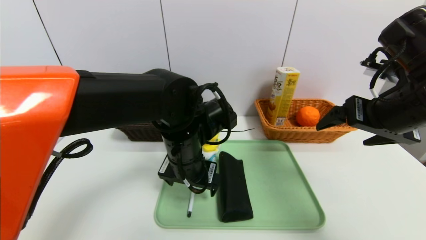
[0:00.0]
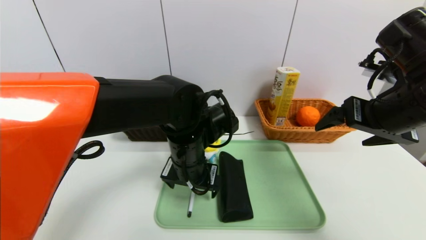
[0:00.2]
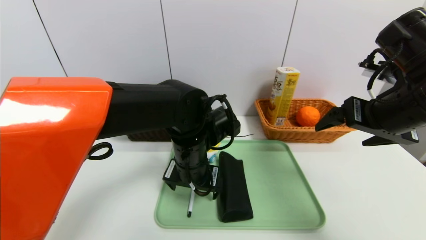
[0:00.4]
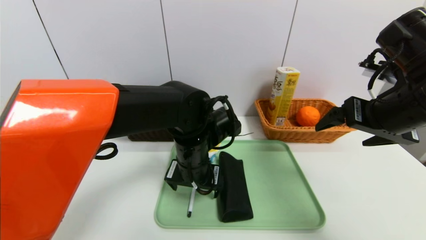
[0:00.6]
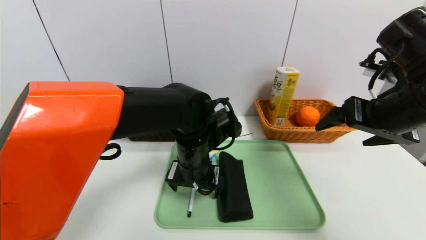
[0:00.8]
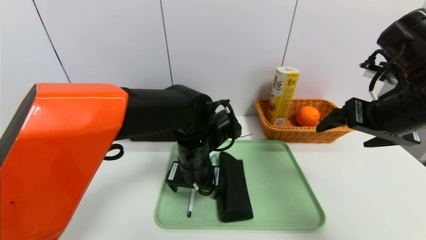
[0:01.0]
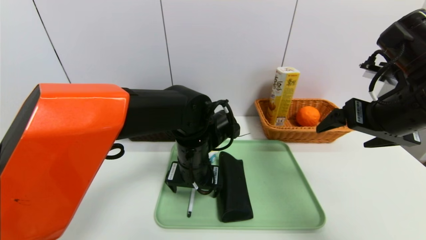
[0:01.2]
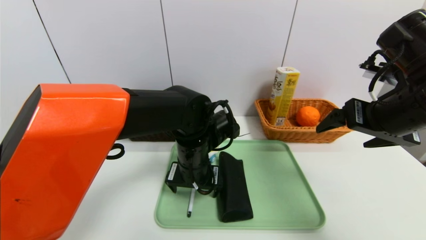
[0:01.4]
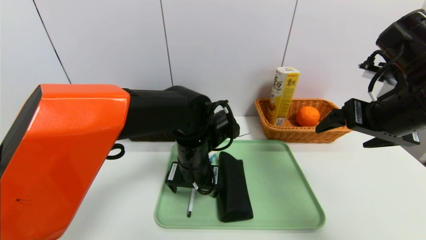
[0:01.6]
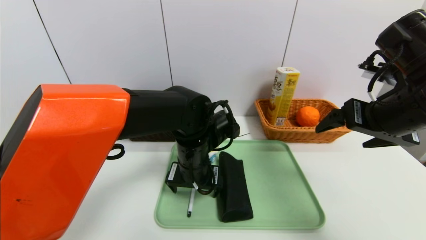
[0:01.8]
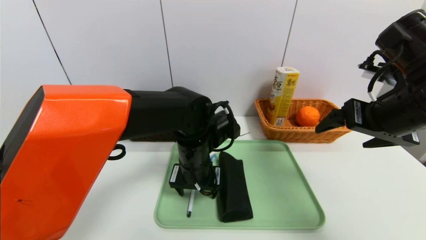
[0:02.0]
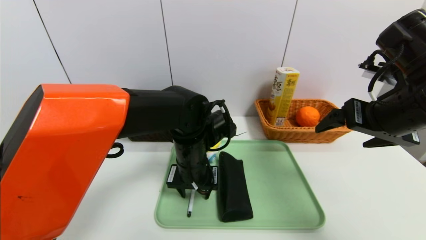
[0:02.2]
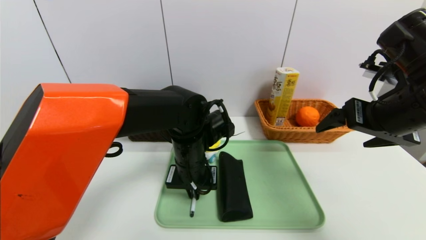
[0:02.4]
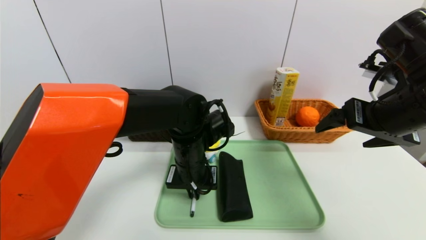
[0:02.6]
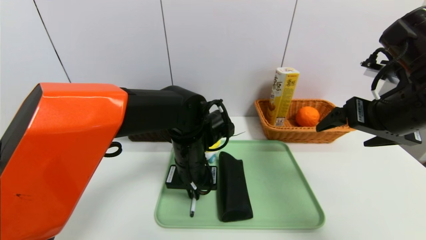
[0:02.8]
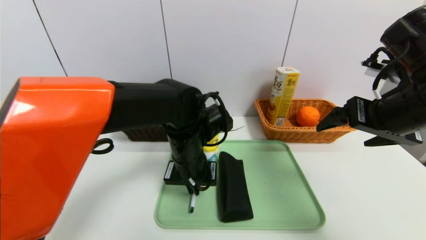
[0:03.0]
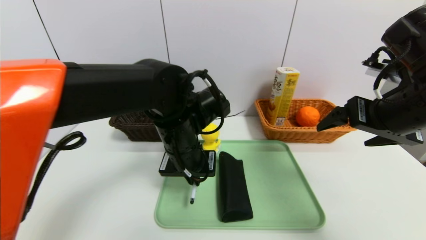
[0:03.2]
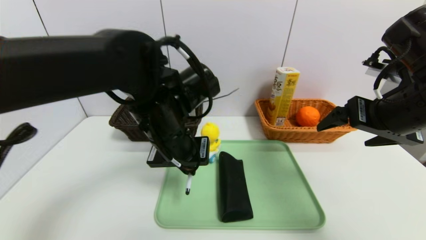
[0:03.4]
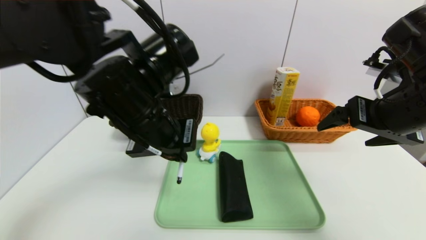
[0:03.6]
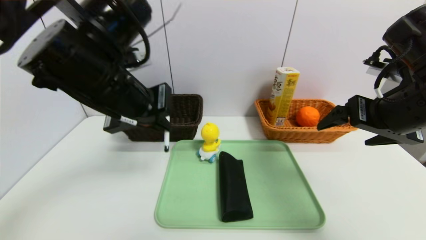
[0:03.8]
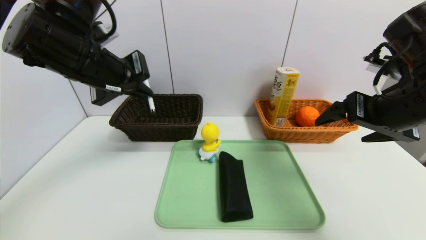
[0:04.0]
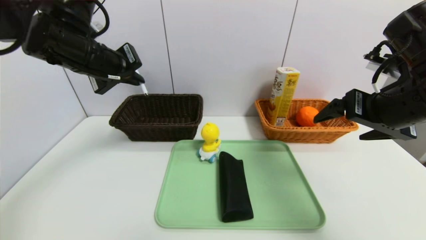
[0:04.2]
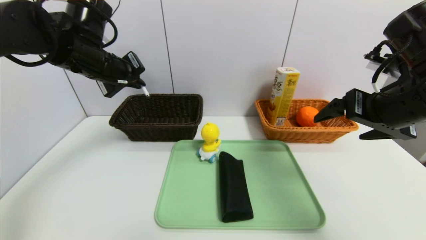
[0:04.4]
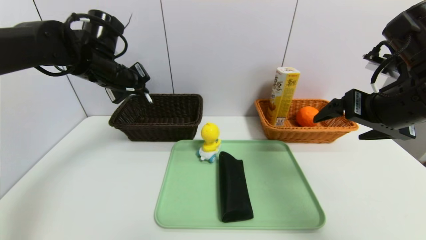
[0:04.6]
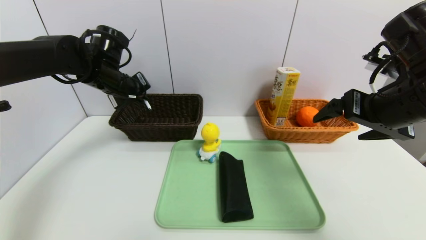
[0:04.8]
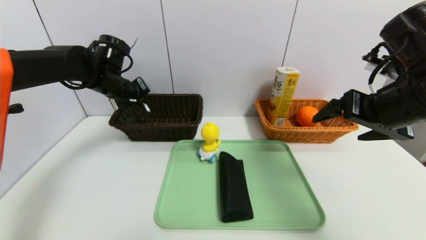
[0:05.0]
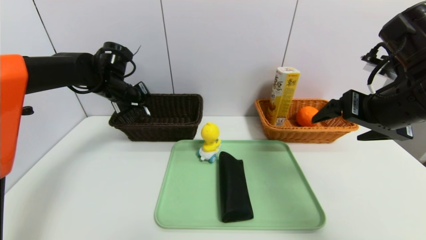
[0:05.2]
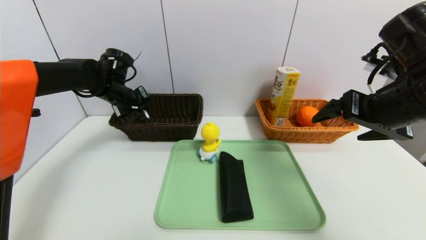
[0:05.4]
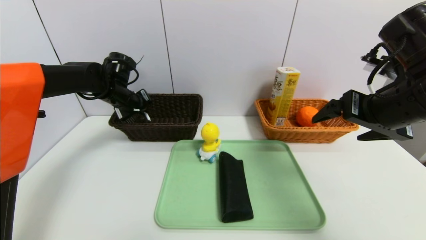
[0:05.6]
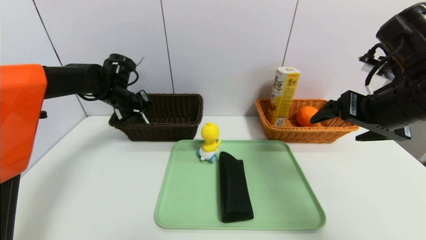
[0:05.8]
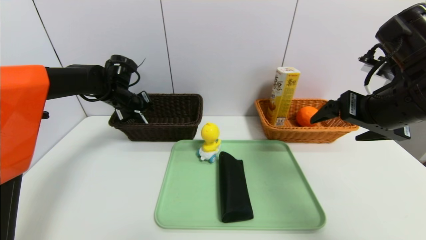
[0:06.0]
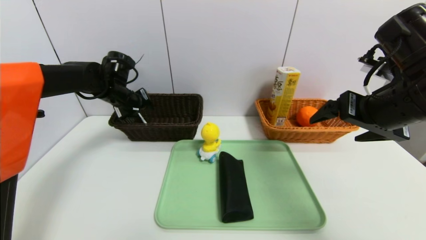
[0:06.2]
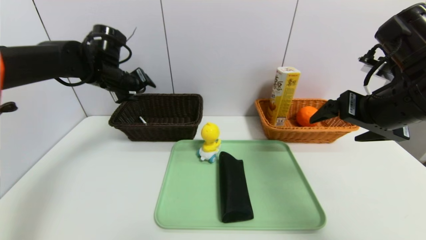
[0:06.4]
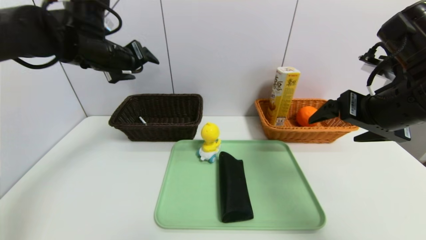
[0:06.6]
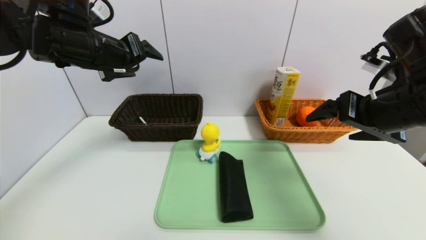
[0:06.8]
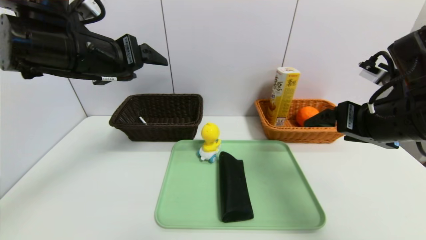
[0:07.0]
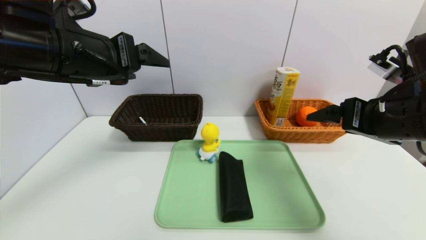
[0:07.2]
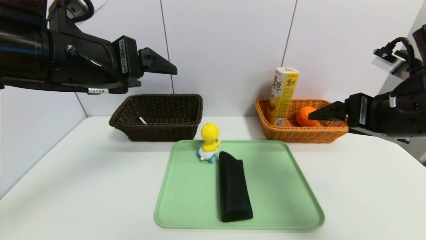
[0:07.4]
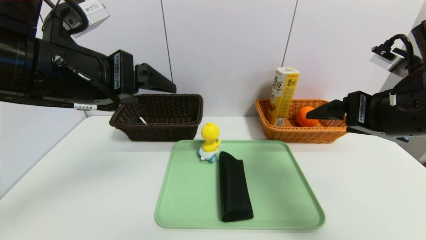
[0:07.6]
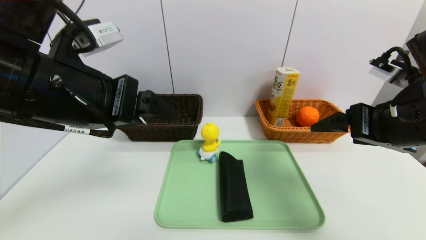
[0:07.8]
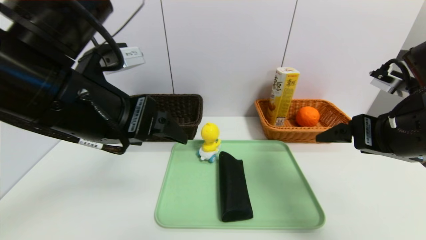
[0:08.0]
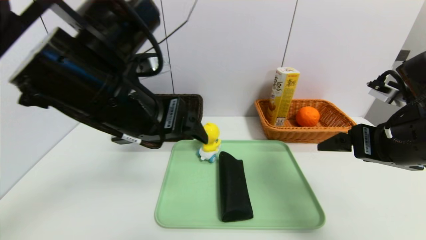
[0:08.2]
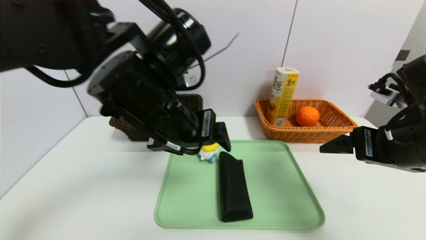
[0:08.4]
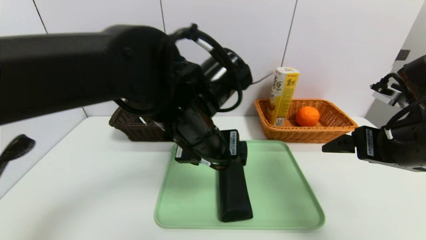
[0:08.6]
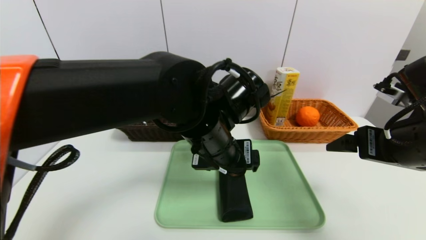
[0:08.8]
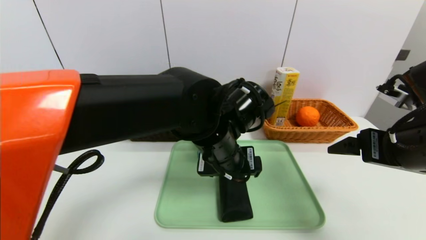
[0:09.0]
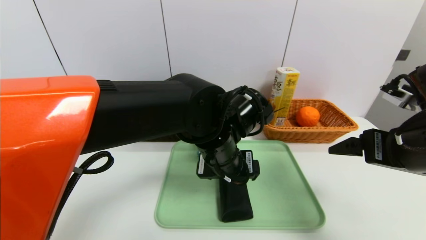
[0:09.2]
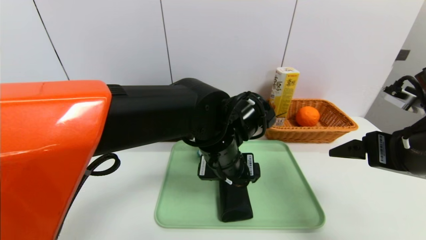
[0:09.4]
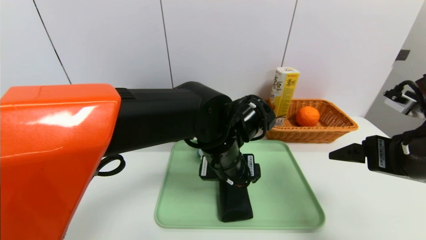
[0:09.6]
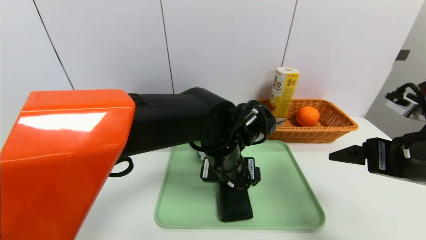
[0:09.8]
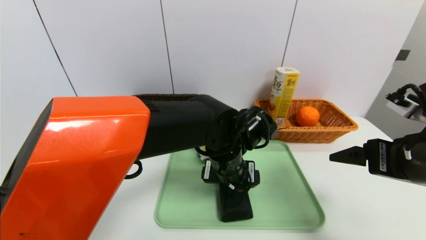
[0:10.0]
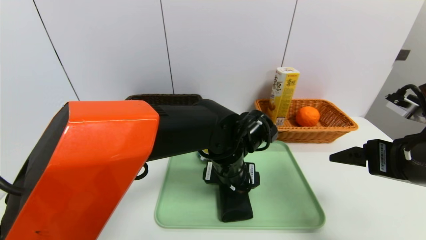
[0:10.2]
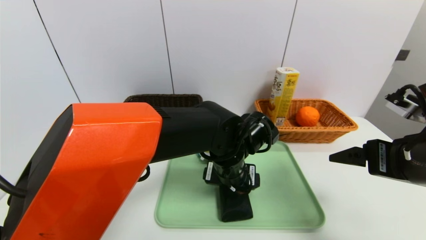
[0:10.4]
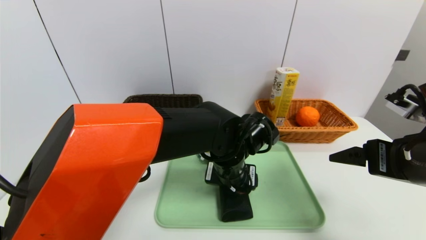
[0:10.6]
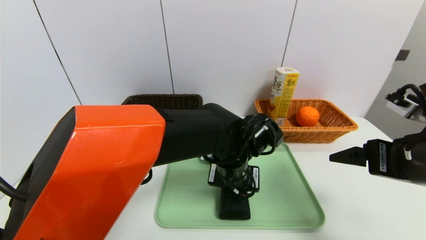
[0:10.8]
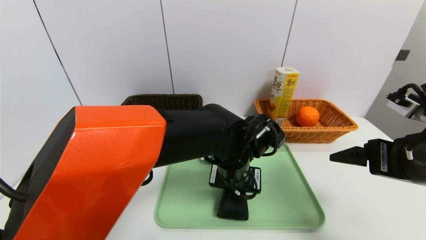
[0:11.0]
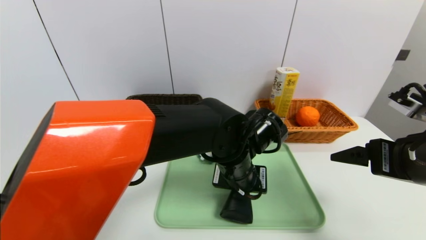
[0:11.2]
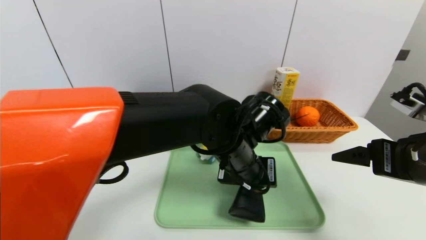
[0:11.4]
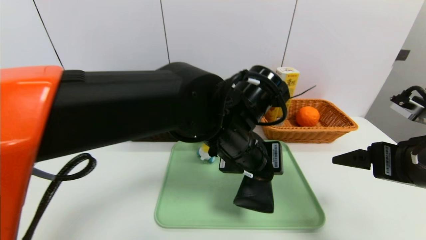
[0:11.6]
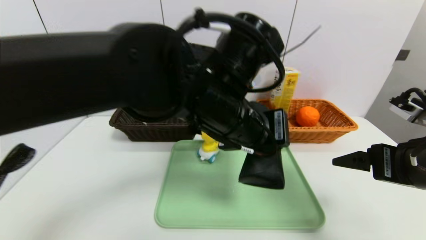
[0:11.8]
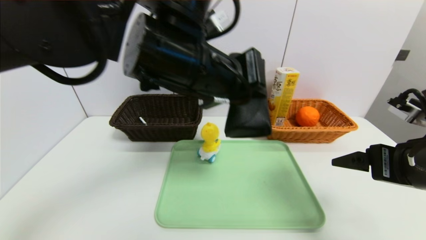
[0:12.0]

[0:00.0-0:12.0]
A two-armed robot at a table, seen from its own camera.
Task of the whole recording: place the food in the right basket with the right gripper, and place the non food items in the left basket with the left gripper.
Step, 0:00.0 to 0:06.2: Grasp the ballpoint pen and put it in the left basket.
0:01.6 to 0:03.0: The left gripper closes up.
0:03.0 to 0:04.4: The left gripper moves to the left and upward, some 20 cm.
0:04.4 to 0:06.0: The left gripper is displaced downward and forward by approximately 15 cm, and opens its fingers.
0:06.0 to 0:07.6: The left gripper is displaced backward and upward by some 30 cm, and opens.
0:07.6 to 0:09.0: The left gripper goes approximately 25 cm to the right and downward.
0:09.0 to 0:10.4: The left gripper travels downward by some 5 cm.
0:10.4 to 0:12.0: The left gripper travels upward and to the left by roughly 20 cm, and closes its fingers.

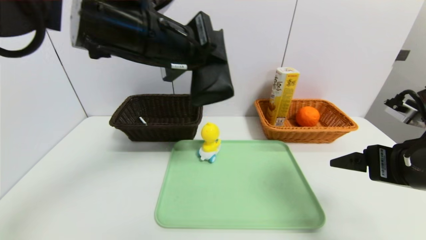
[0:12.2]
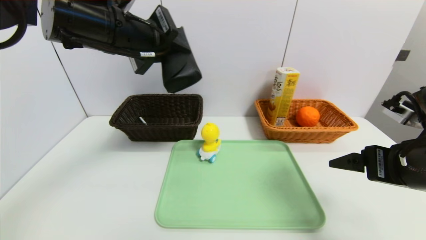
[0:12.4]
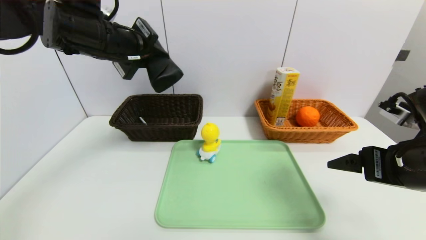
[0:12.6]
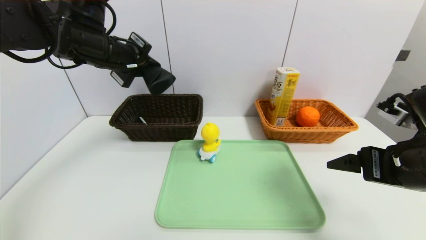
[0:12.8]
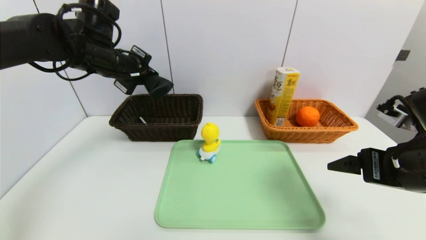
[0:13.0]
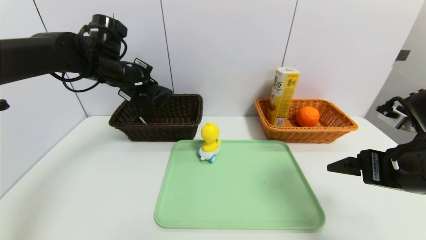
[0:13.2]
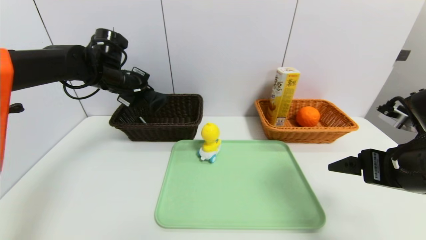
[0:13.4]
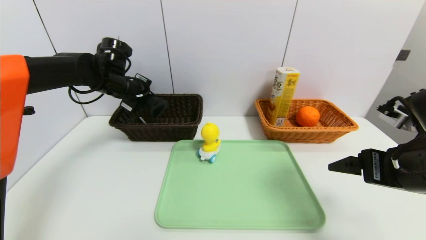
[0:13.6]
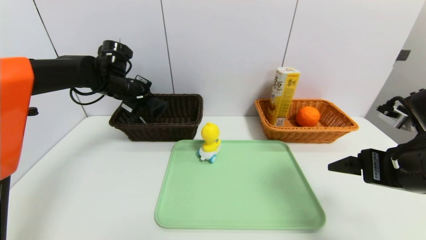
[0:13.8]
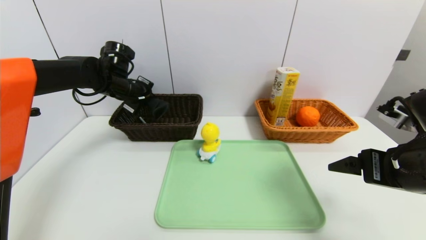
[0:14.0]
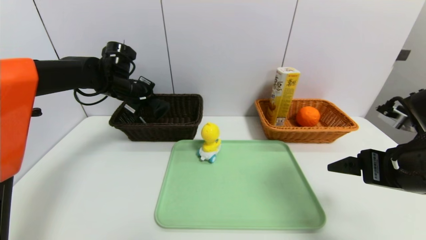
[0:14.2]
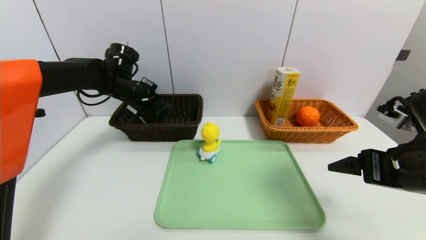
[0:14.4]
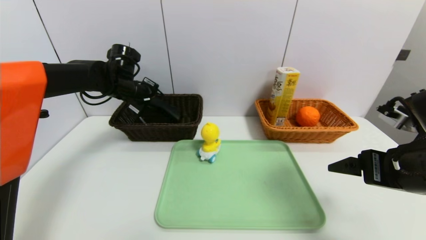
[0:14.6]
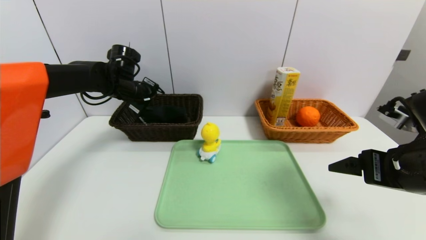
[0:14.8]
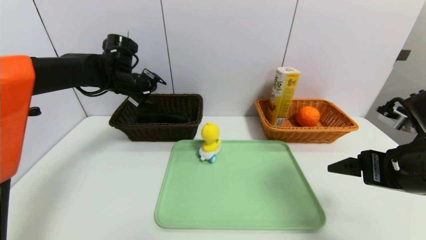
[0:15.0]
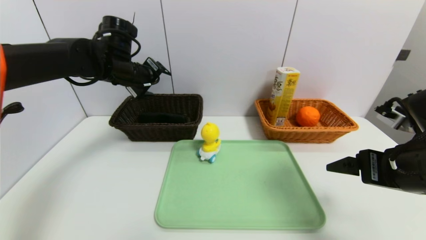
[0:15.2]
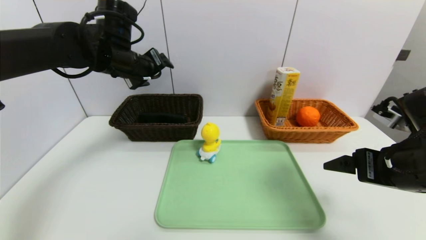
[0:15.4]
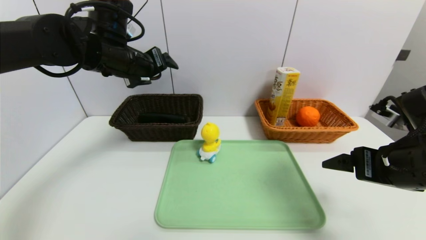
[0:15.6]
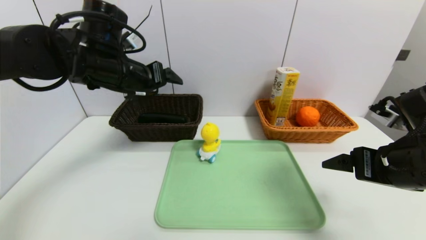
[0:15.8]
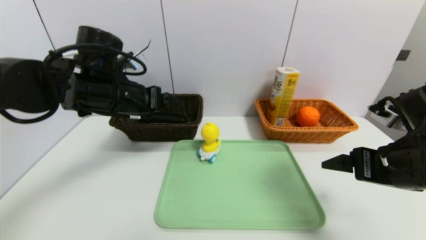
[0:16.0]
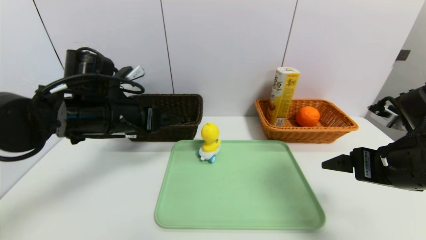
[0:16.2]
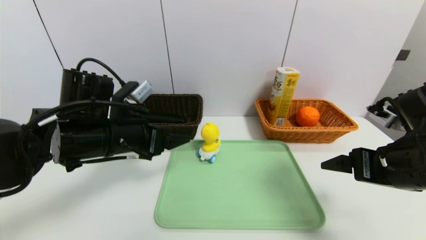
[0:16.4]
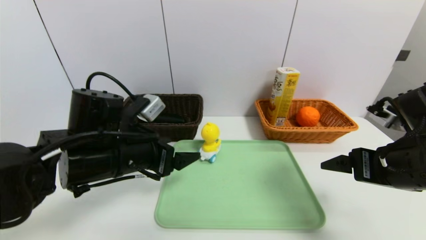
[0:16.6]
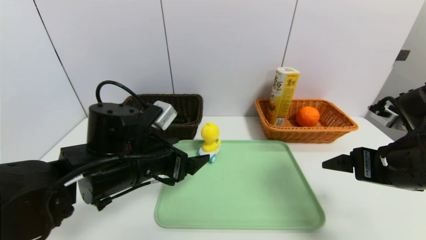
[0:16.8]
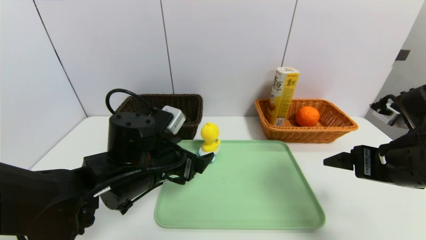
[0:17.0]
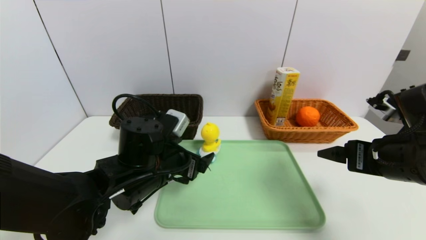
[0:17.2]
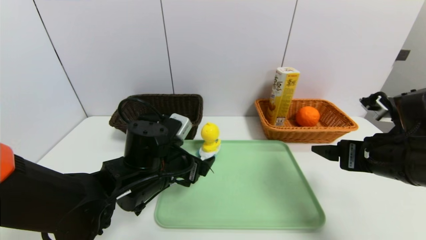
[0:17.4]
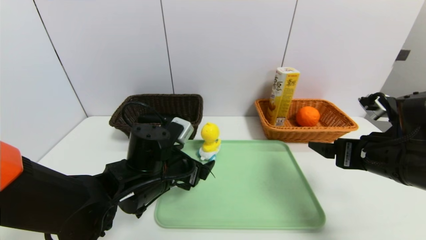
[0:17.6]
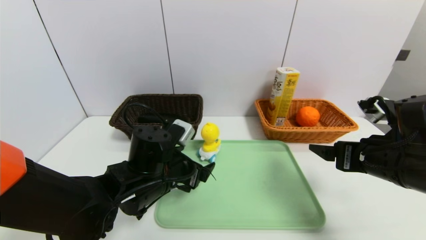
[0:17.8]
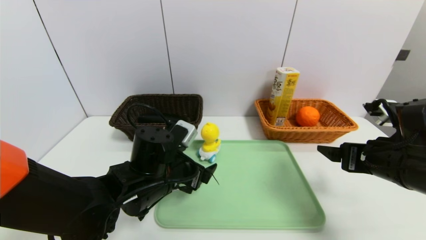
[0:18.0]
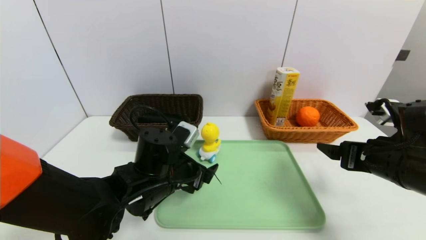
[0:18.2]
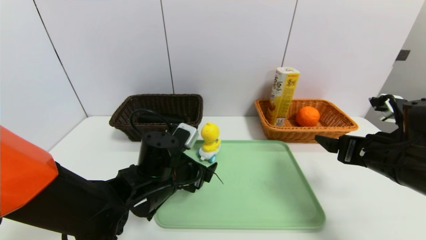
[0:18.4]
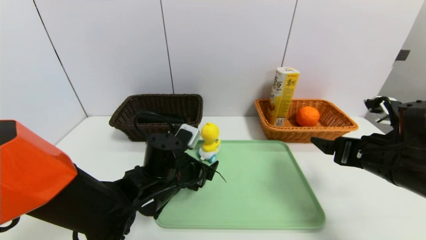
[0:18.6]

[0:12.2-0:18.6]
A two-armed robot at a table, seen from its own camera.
Task of the whole recording: place the food in the right basket with the right gripper, and place the non food items in the left basket with the left gripper.
Step, 0:12.2 to 0:15.0: Grasp the glasses case and put it in the left basket.
0:12.2 to 0:13.8: The left gripper goes about 25 cm forward, to the left and downward.
0:13.8 to 0:15.4: The left gripper travels upward, backward and to the right by approximately 10 cm, and opens up.
0:15.4 to 0:17.0: The left gripper shifts about 20 cm downward, backward and to the right.
0:17.0 to 0:18.6: The left gripper travels downward by approximately 5 cm.
